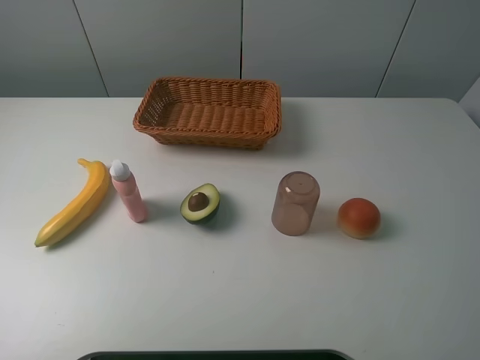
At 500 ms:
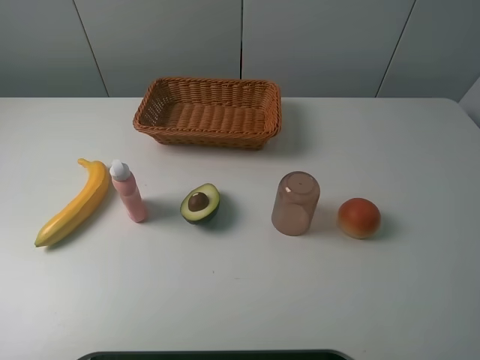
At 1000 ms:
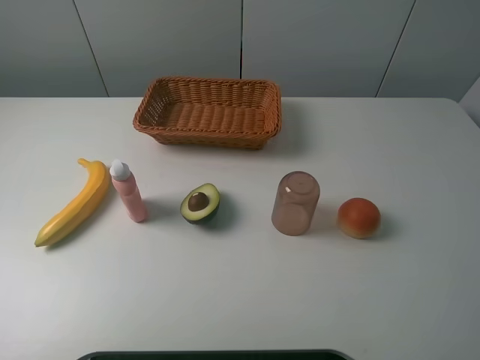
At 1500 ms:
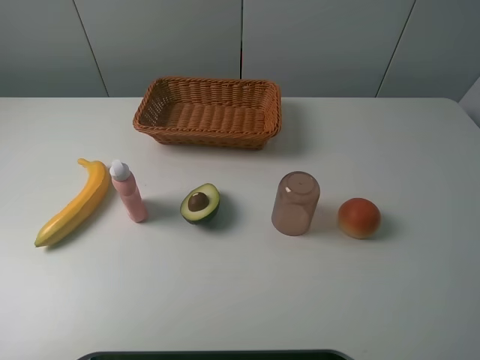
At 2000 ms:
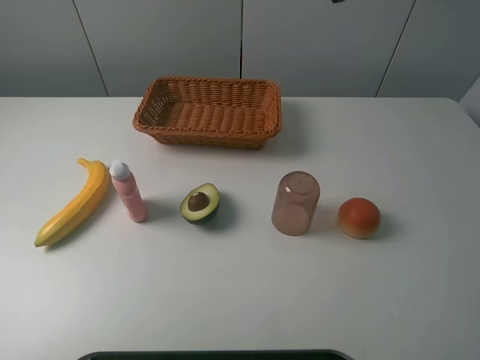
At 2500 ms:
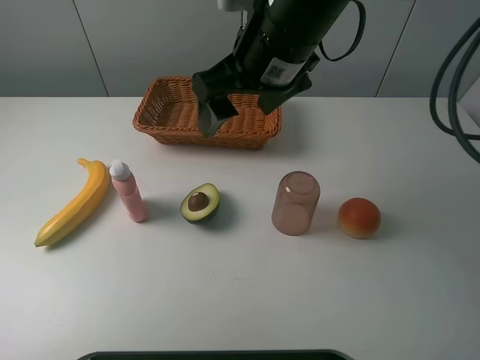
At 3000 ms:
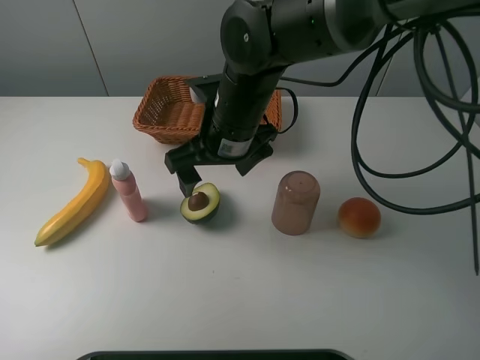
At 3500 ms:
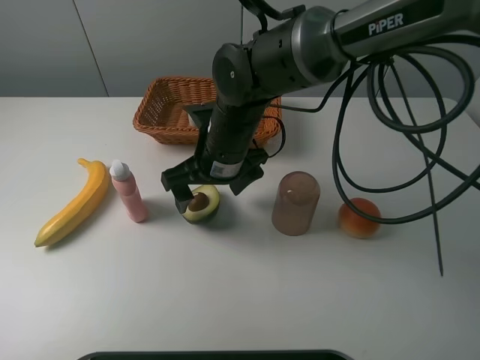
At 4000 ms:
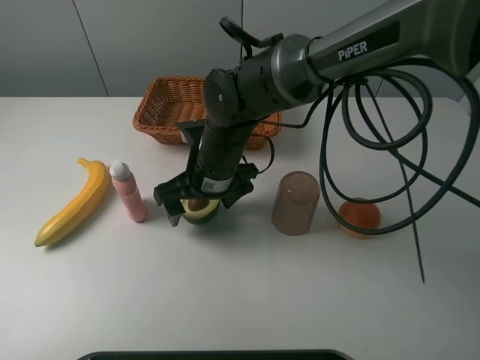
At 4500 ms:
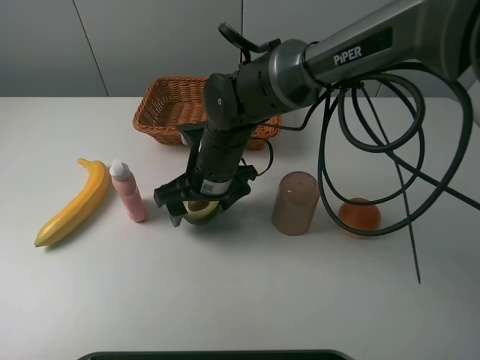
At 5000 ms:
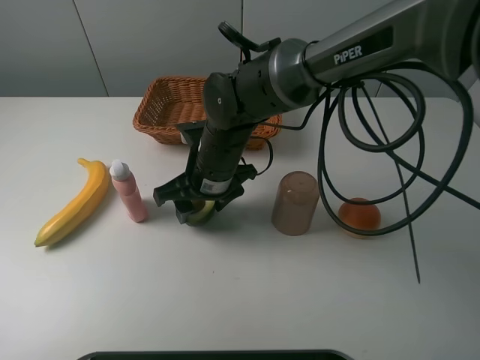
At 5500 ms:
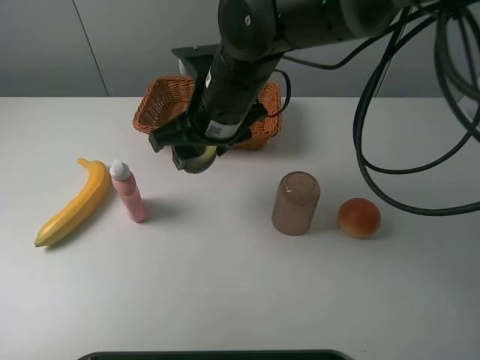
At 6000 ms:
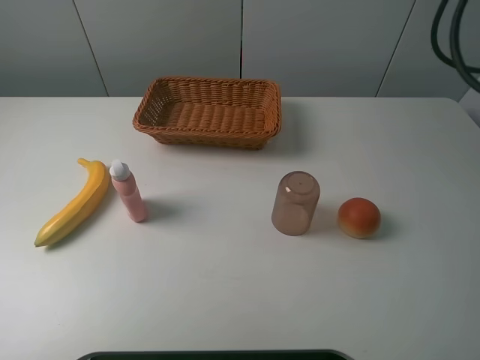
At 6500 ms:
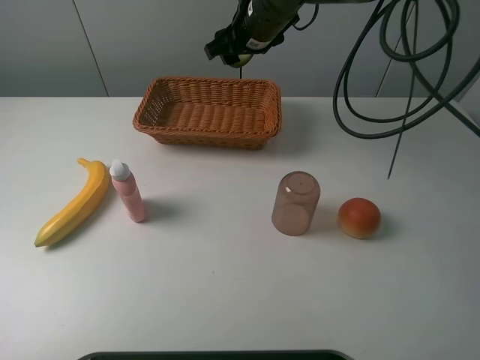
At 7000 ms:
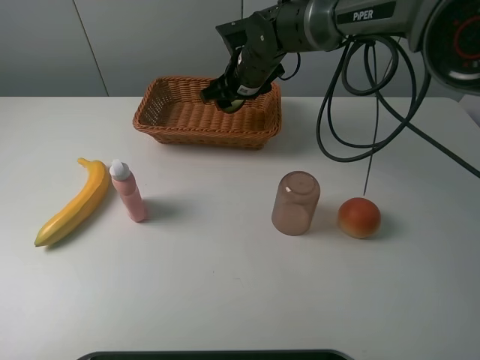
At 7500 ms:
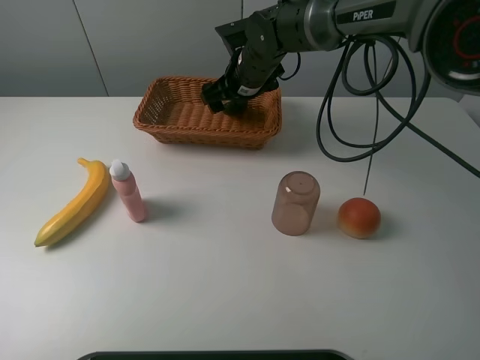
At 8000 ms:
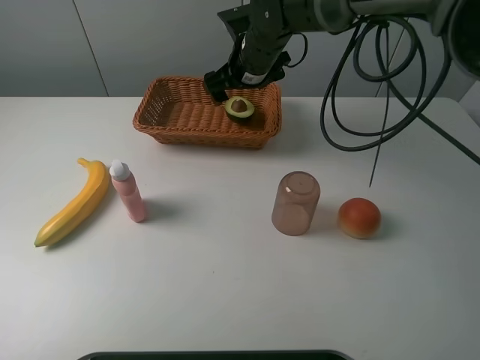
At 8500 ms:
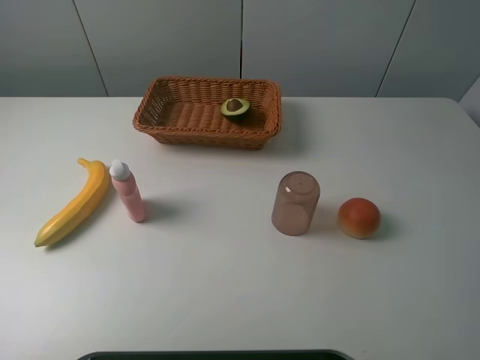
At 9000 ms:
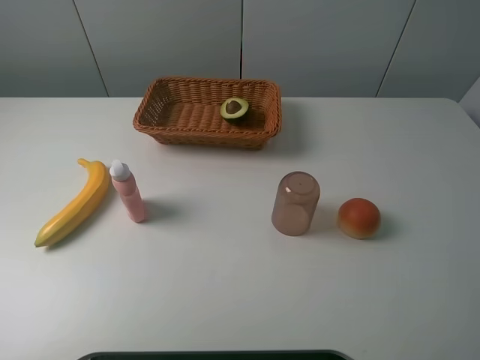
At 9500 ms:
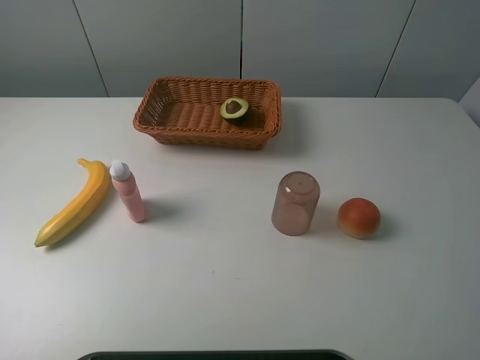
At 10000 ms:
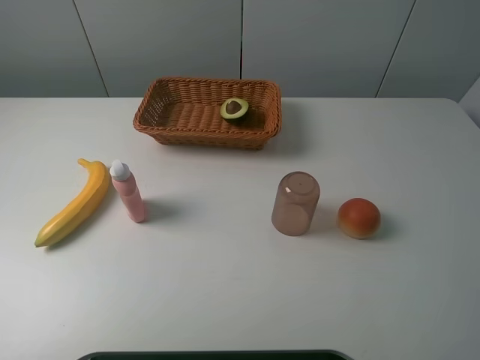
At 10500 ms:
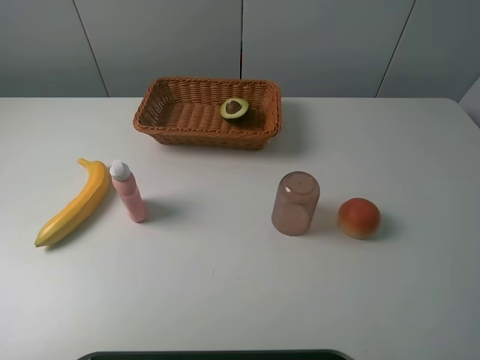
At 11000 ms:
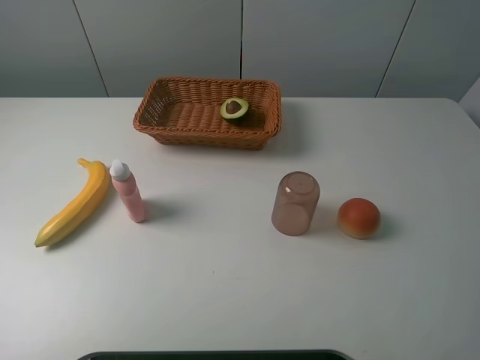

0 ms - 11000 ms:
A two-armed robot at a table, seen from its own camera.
Task of the whole recording: randomly pick up an item from the table and put it in the basket.
Step, 0 ms - 4500 ms: Grasp the avocado with the right gripper.
Step, 5000 ms - 7500 ms: Place the avocado into the basket with the right gripper.
2000 ms - 3500 ms: The right gripper is displaced downward and to the left by approximately 30 cm.
3500 ms - 5500 ms: The right gripper moves upward, about 10 cm, and closes.
5500 ms - 7500 ms: The right gripper heads forward, covering roughly 15 cm, travels upward and back again, about 15 cm each way, and opens.
7500 ms - 9000 ms: The right gripper moves upward, to the right and backward, approximately 50 cm.

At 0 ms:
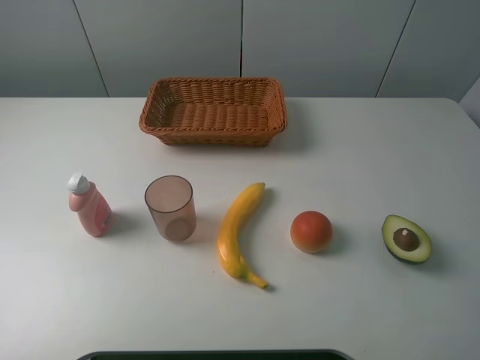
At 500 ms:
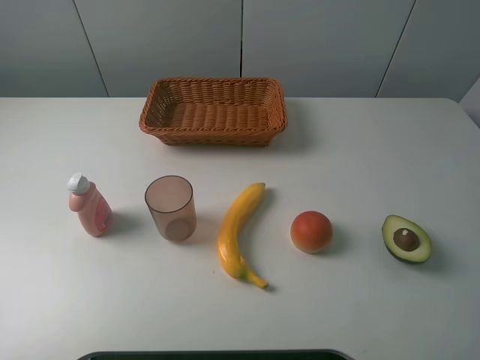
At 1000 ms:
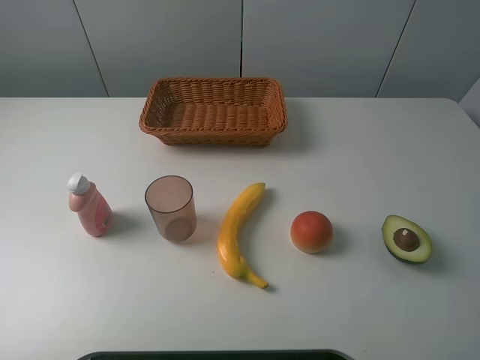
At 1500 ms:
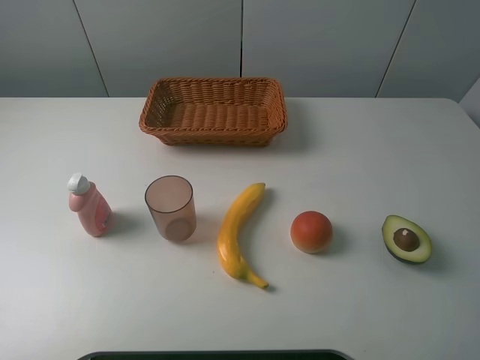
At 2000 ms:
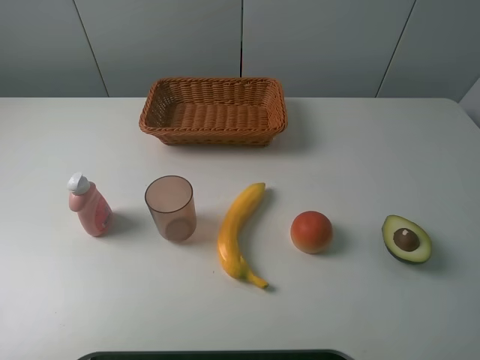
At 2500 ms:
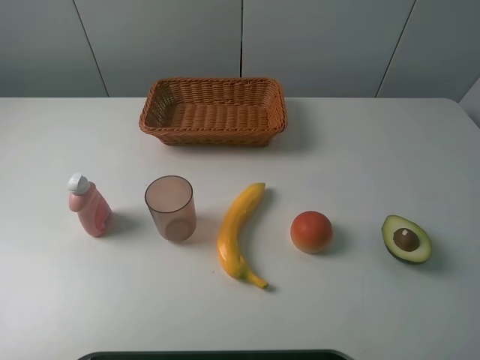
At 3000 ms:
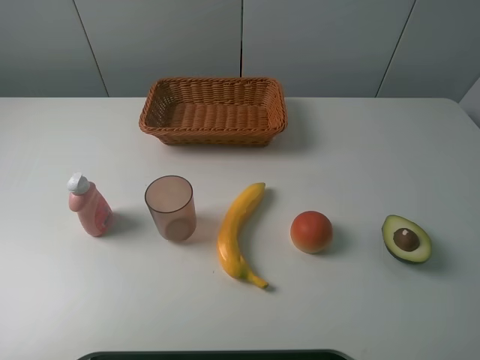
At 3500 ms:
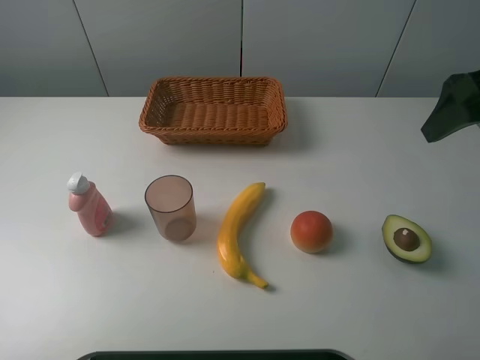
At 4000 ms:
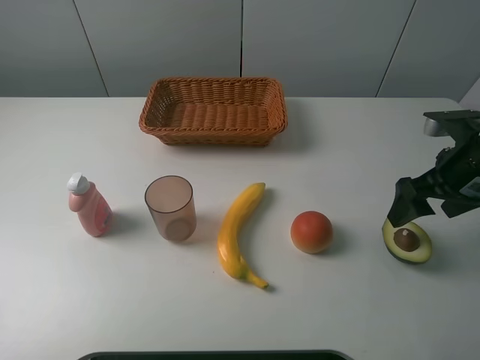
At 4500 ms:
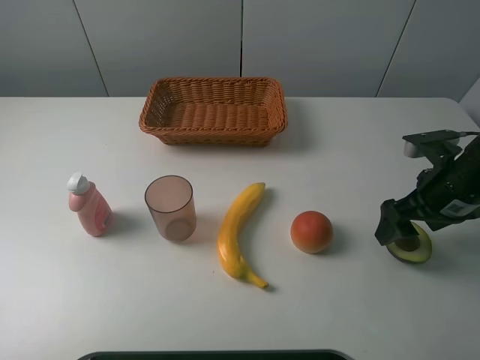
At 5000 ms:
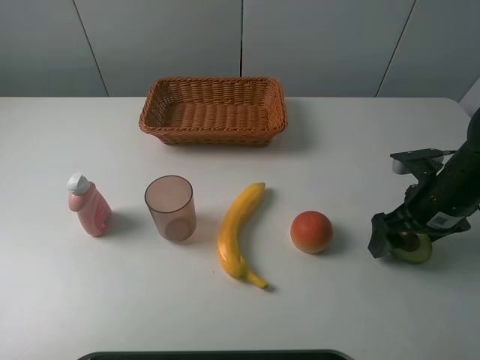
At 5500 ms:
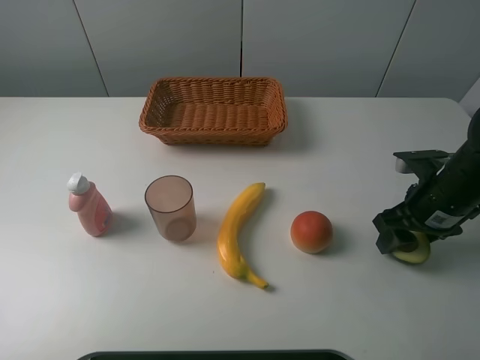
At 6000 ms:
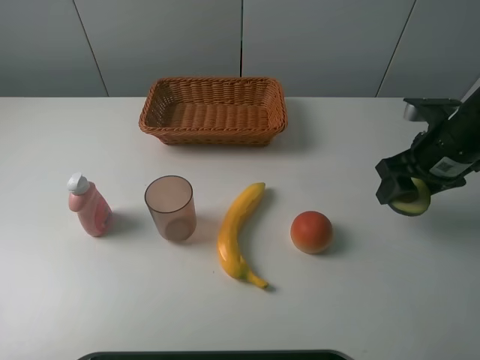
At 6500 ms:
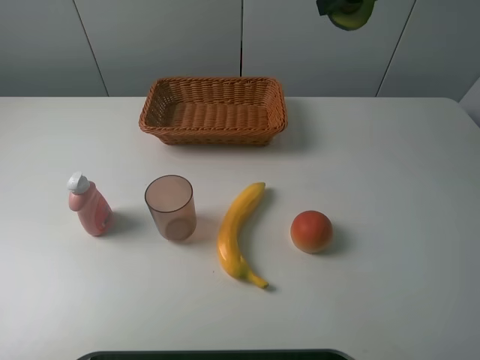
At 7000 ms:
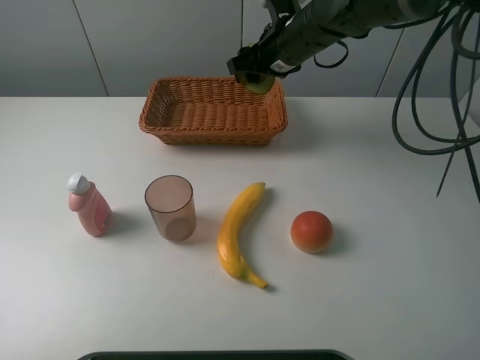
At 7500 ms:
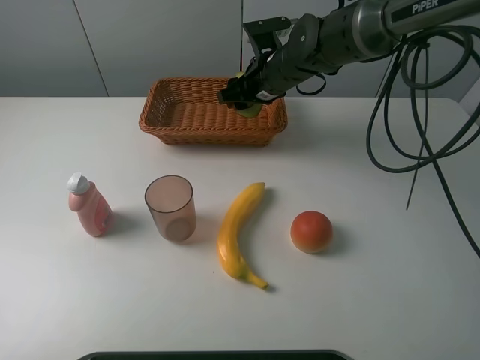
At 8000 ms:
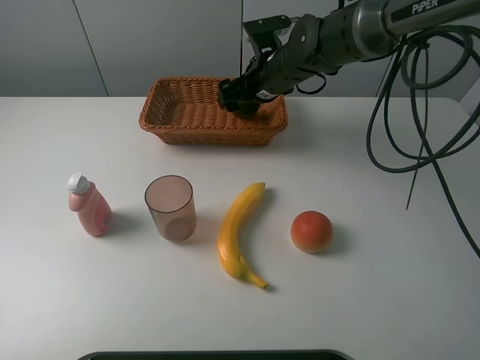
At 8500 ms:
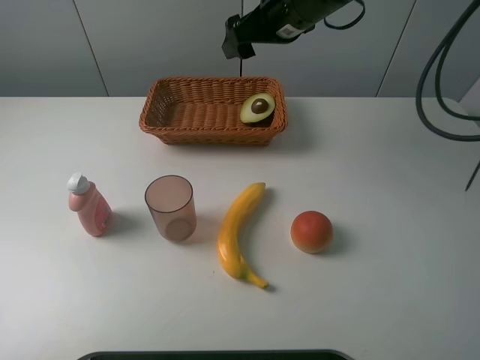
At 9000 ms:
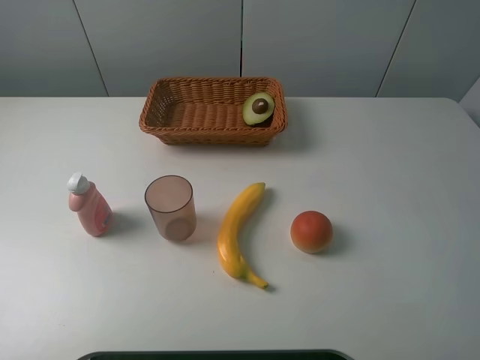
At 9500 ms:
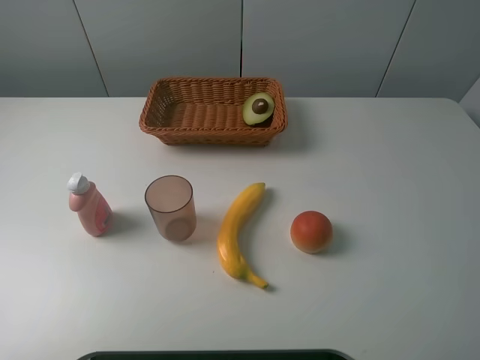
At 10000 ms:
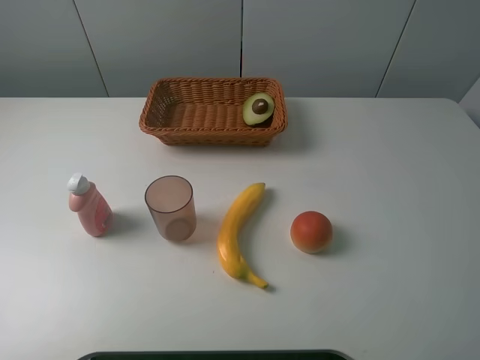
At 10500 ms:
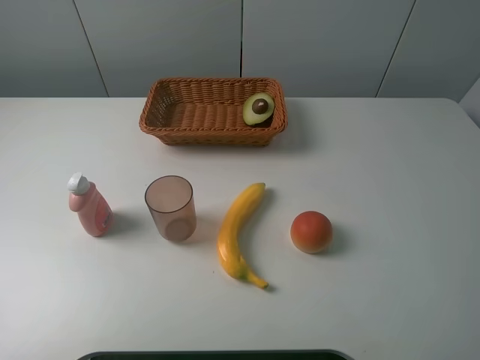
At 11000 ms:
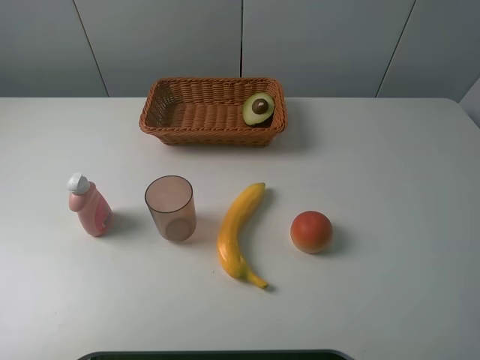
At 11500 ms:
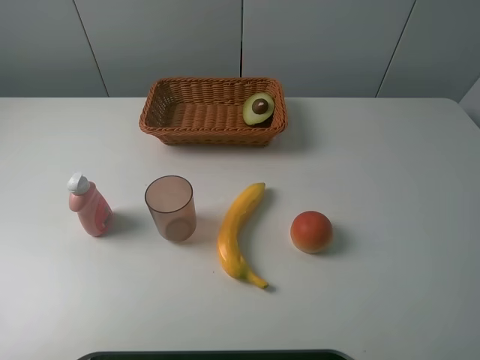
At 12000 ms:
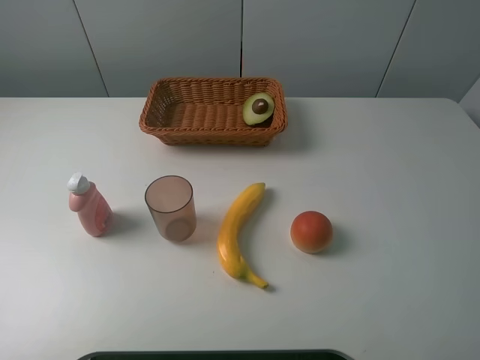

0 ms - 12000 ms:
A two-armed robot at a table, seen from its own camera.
Task of the whole recording: randomly pick up an item from the table and put it in the basket.
Step, 0 ms - 5500 ms: Grasp the avocado with the right gripper.
Step, 6000 ms - 8000 ms: Place the avocado into the basket with the right gripper.
0 ms - 2000 ms: Neither gripper changes place.
2000 ms - 4000 ms: The right gripper travels forward and downward by roughly 25 cm.
4000 ms - 6000 ms: The right gripper closes its fingers.
6000 ms - 8000 ms: The right gripper goes about 25 cm to the left and forward, and opens its fingers.
8000 ms - 10000 ms: The right gripper travels backward, to the right and upward by roughly 50 cm.
